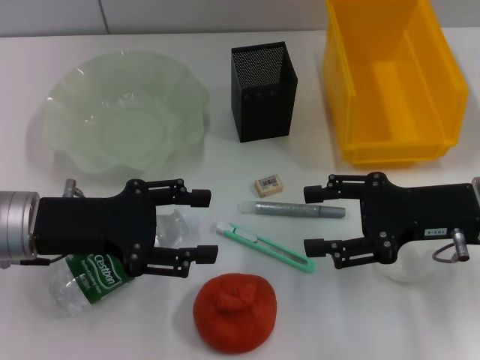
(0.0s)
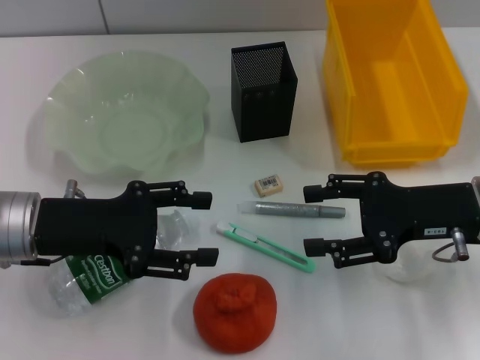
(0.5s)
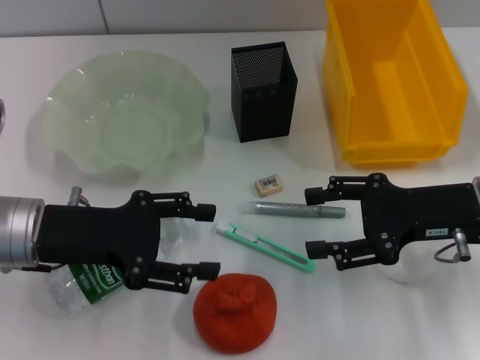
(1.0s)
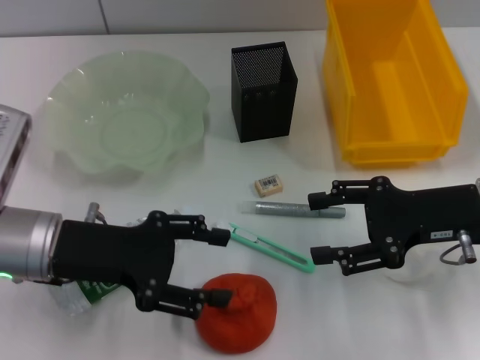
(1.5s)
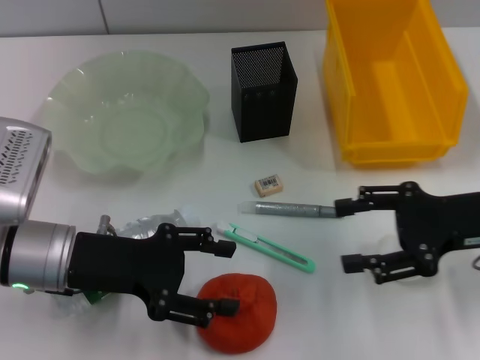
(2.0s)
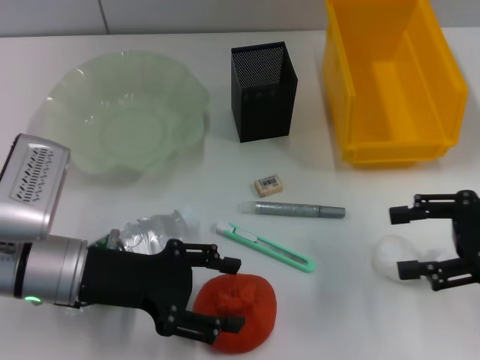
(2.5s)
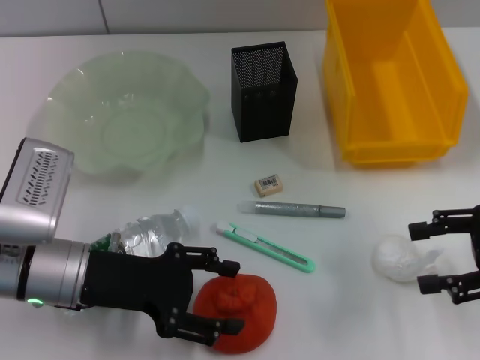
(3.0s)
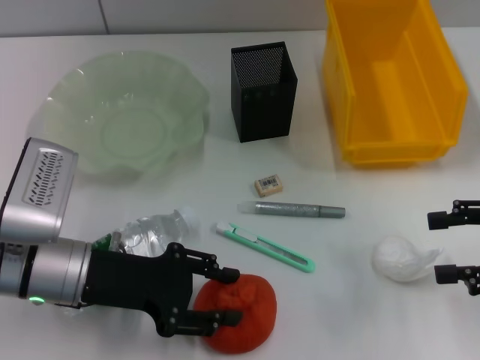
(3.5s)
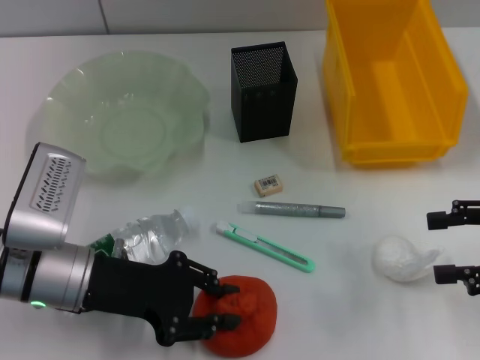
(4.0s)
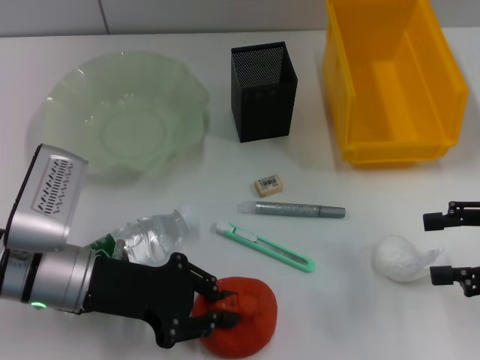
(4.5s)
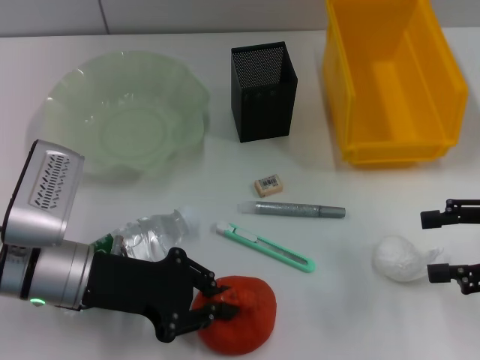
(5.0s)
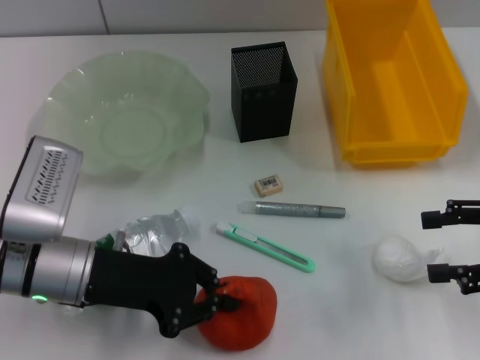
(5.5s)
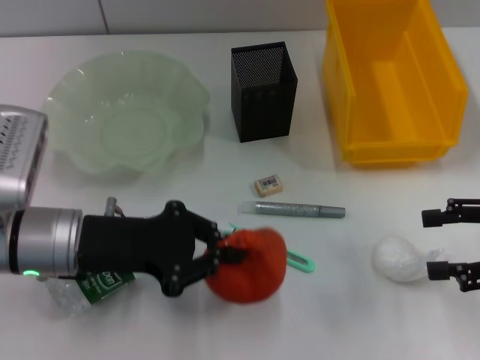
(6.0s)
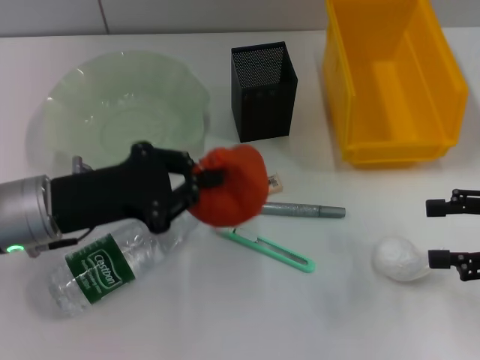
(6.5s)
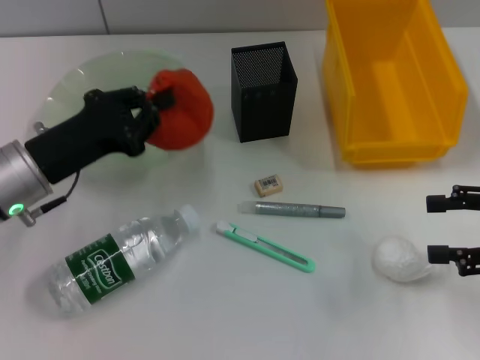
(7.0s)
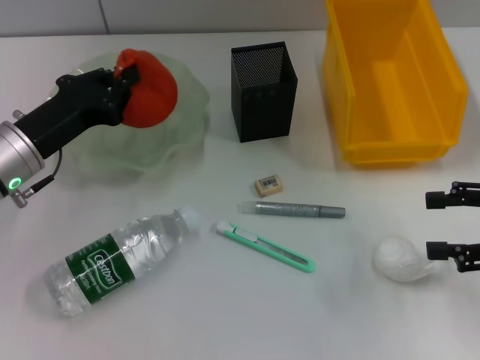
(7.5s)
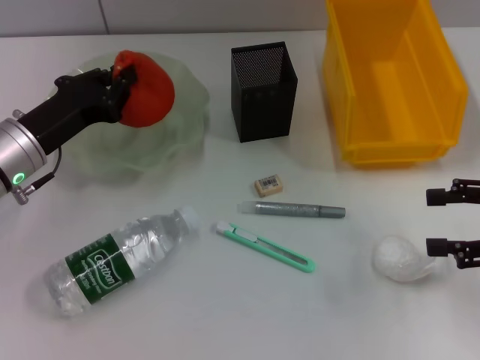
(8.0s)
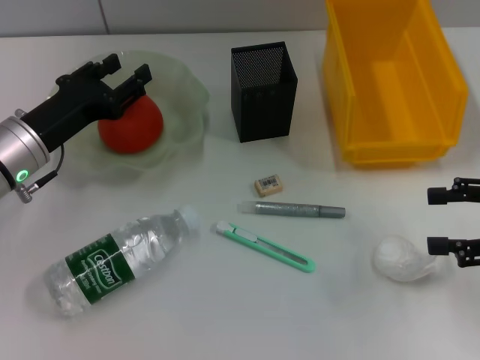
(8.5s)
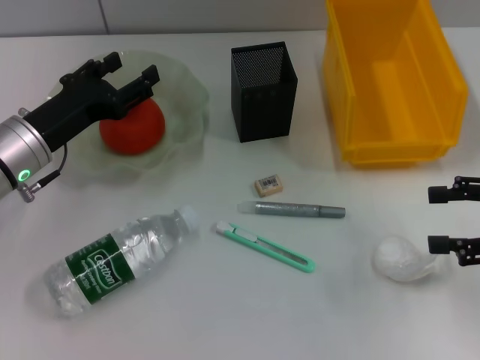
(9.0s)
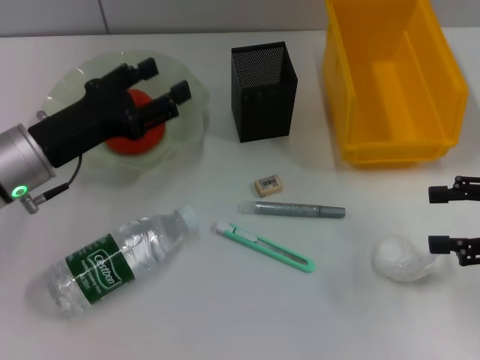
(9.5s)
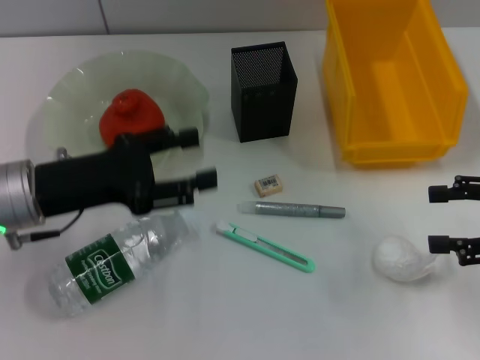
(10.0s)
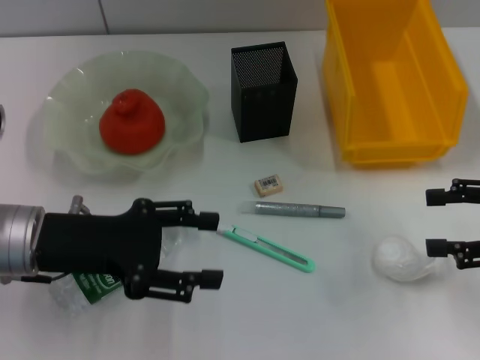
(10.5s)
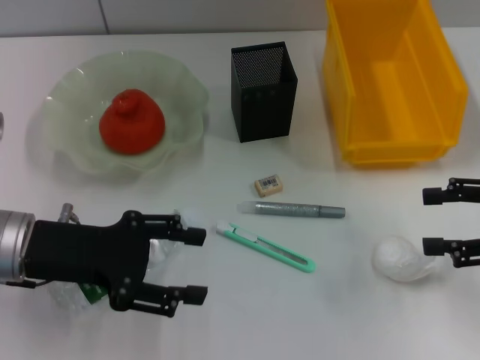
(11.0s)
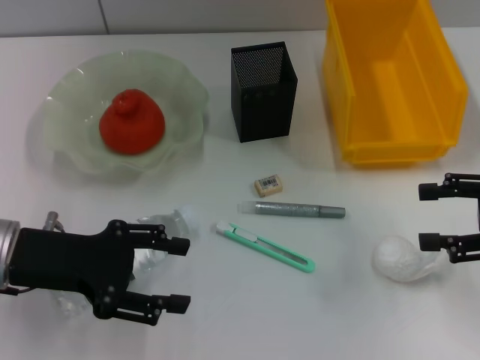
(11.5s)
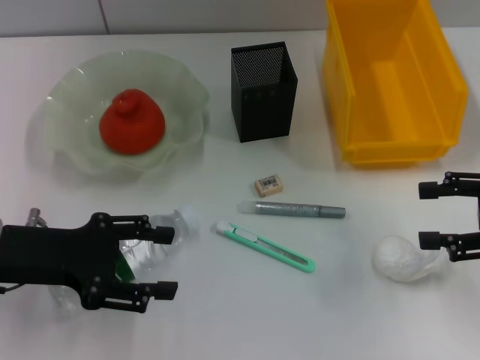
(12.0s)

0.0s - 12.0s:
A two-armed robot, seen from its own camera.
Step, 0.0s - 4.5s: Grab the orange with the left hand.
Step, 5.5s - 8.0s: Place the orange into the fruit bowl with the left hand.
0.0s - 2.0s: There are only small adjustments of the grippers.
2.0s - 4.0s: The left gripper closes up. Meanwhile the right gripper moves to the right, approximately 10 cm.
4.0s - 6.0s: The left gripper closes up.
6.0s - 8.0s: The left gripper travels forward by roughly 5 cm.
8.0s - 10.0s: The left gripper changes place by roughly 5 cm, and opens.

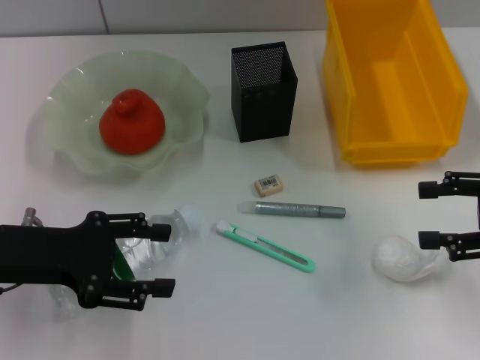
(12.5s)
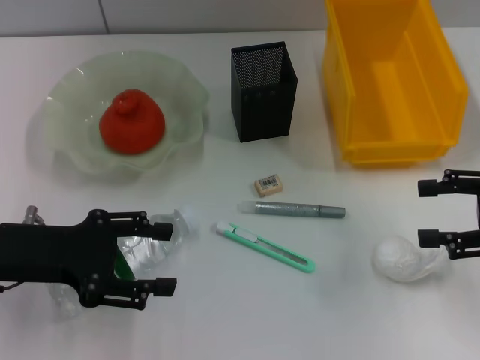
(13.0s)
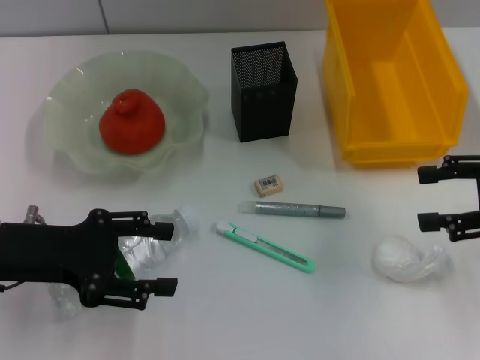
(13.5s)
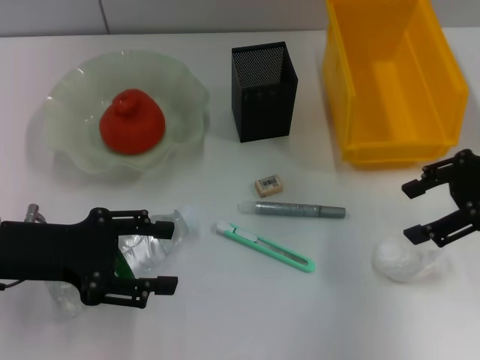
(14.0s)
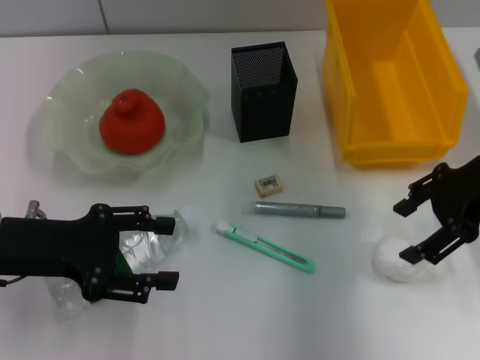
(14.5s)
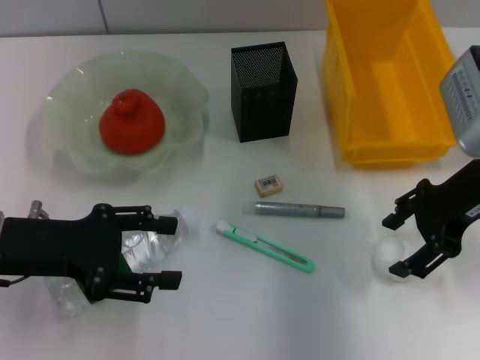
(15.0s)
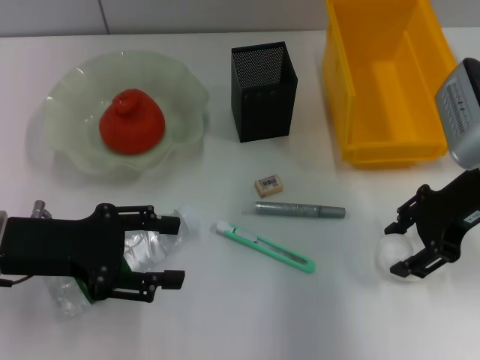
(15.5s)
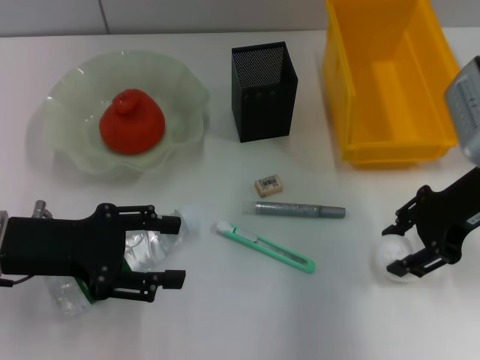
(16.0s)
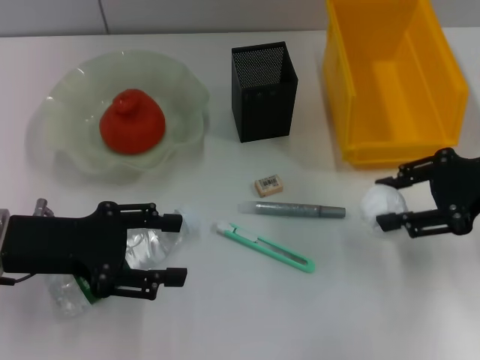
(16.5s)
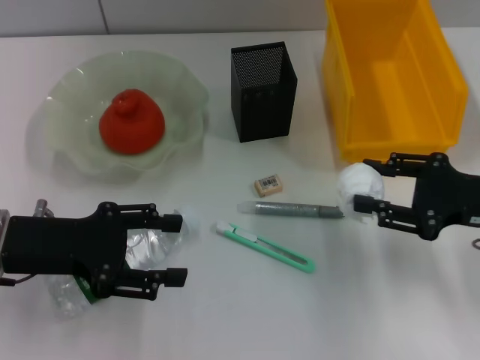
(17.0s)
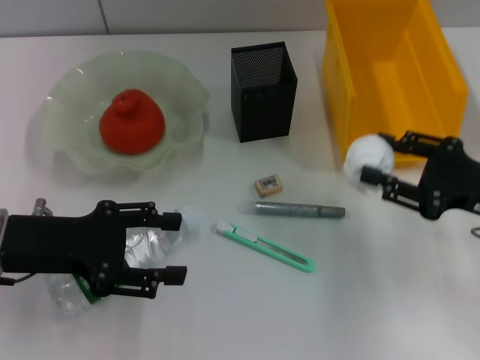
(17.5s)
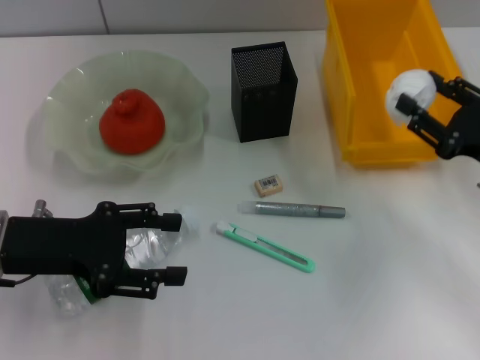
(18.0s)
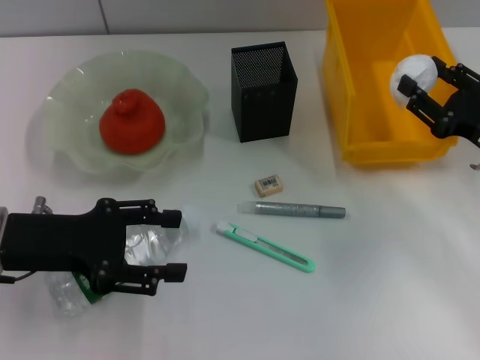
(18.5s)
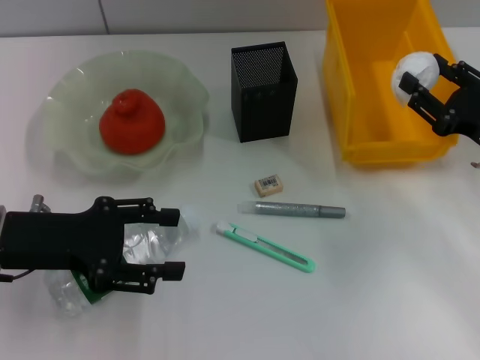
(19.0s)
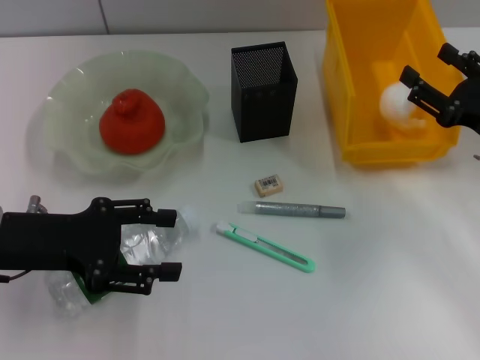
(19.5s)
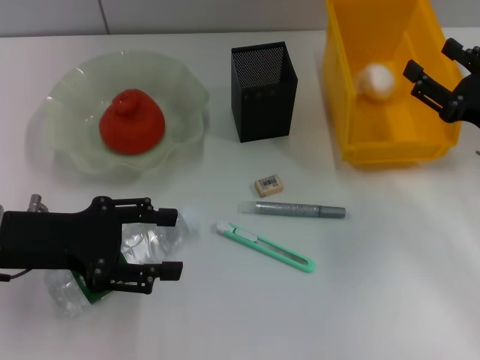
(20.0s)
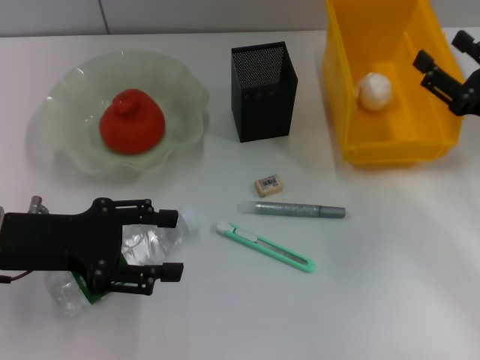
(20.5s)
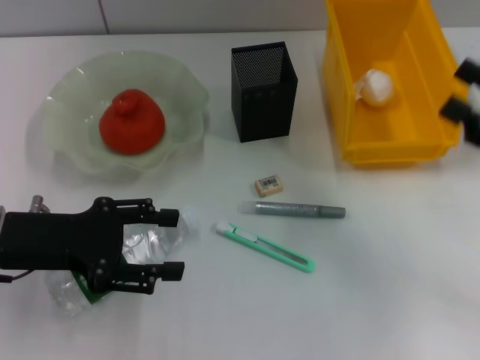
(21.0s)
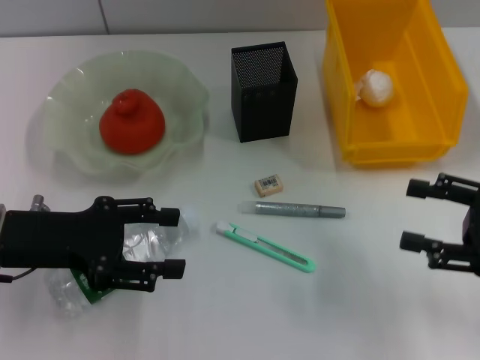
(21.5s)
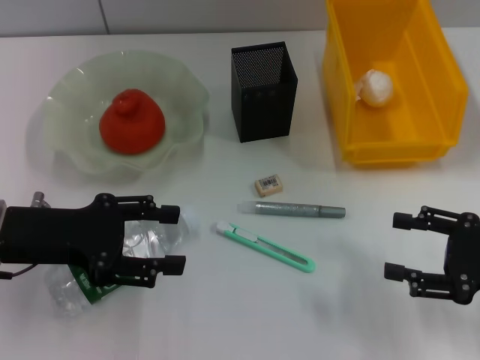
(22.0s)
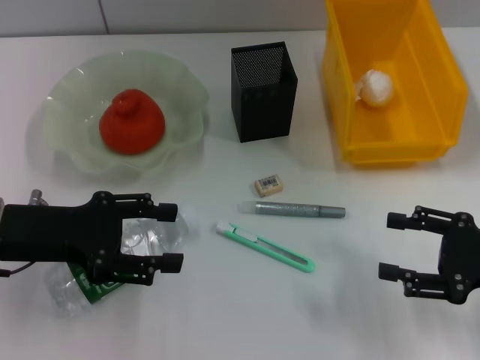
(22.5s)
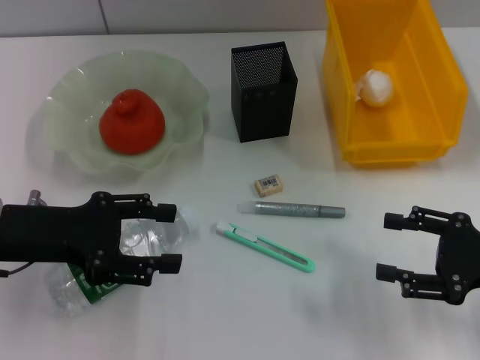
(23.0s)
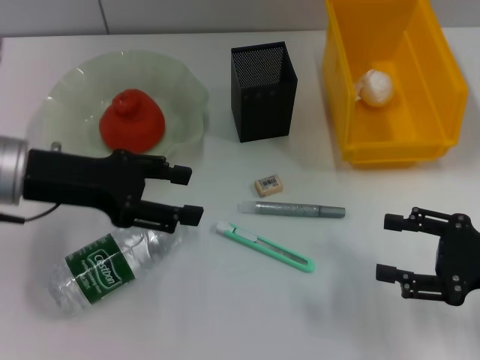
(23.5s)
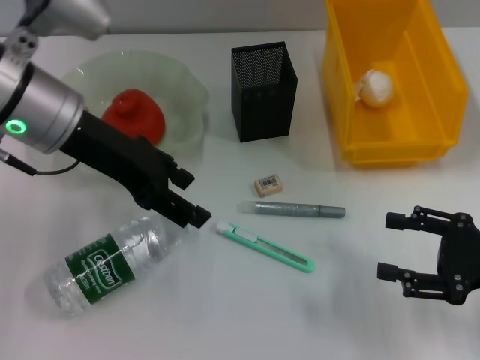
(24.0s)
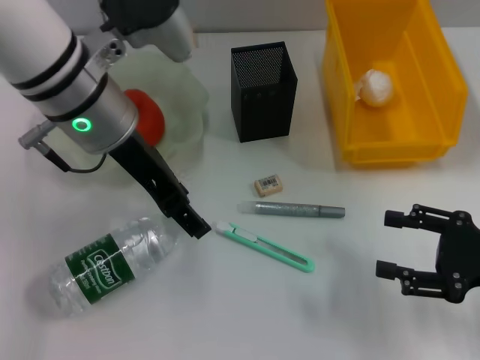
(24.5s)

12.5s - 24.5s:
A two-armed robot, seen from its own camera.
Step, 12.5s - 15.5s: Grab the paper ball with the right hand.
Step, 16.0s - 19.5s: Place the paper ball into the trash can with the right hand.
12.5s - 14.5s: The right gripper heads to the left, forward and upward, covering some 10 cm.
14.5s - 16.5s: The right gripper moves roughly 5 cm, and closes its fingers.
16.5s - 18.5s: The right gripper is displaced downward by some 10 cm.
18.5s - 20.5s: The grippers move only a little.
20.5s - 22.5s: The right gripper is displaced backward by about 10 cm.
22.5s - 24.5s: The left gripper moves to the right, upward and forward, some 20 cm.

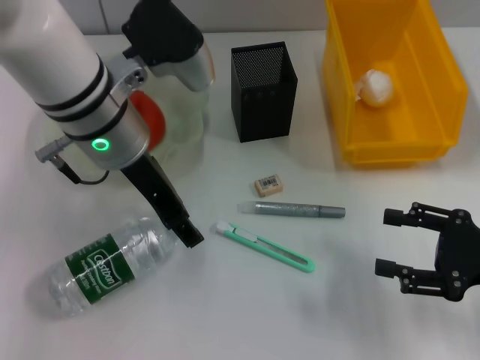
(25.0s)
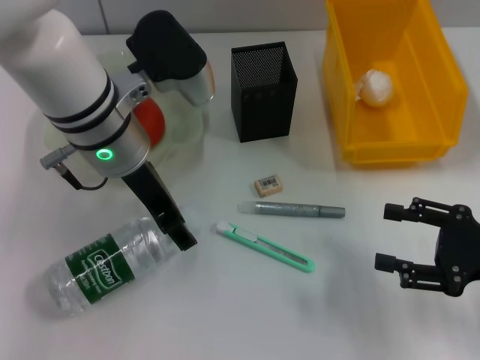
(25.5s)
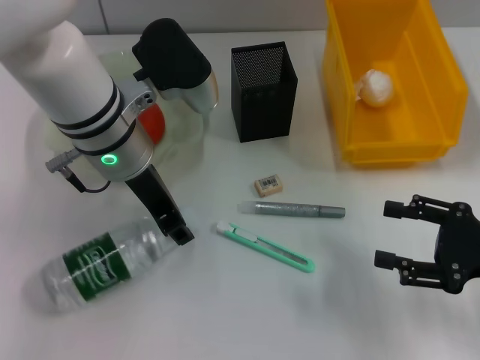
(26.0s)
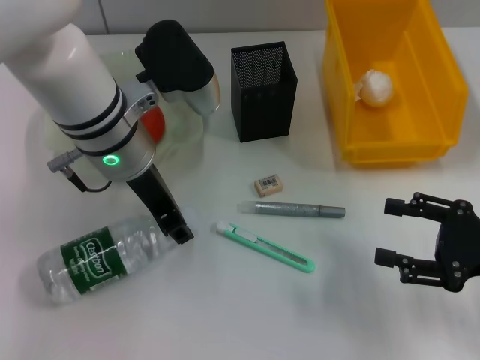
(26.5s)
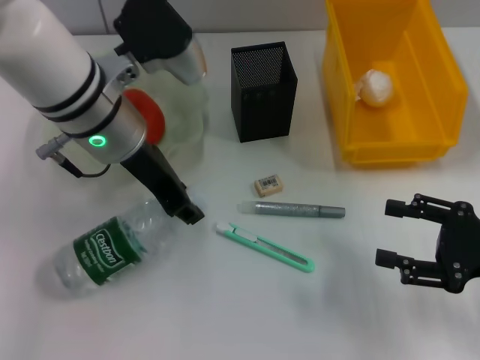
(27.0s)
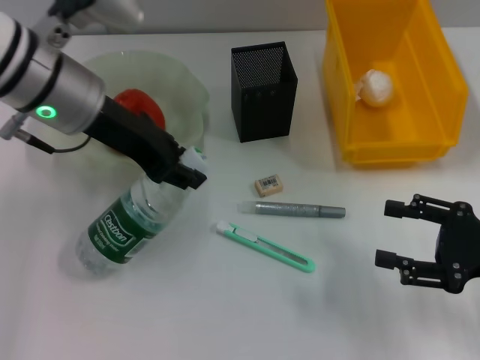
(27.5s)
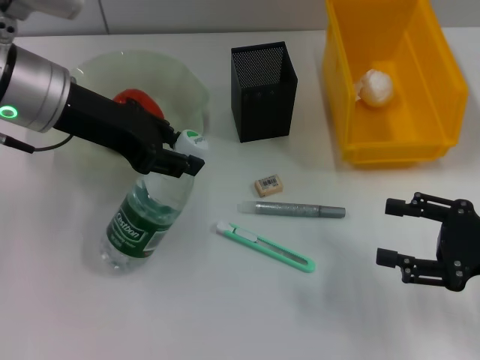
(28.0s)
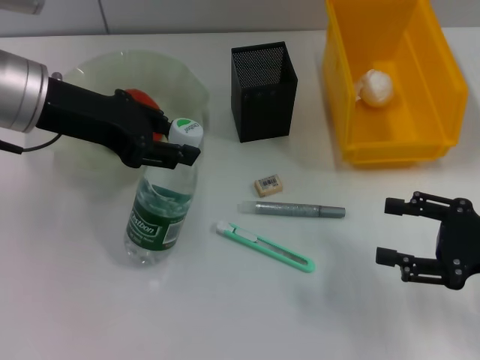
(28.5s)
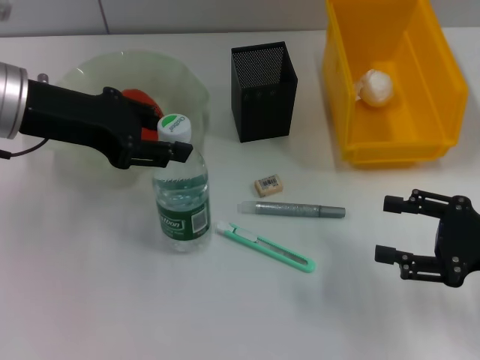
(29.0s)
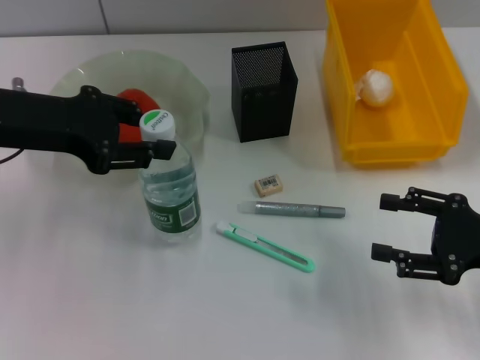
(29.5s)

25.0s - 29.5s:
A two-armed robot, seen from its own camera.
25.0s - 27.0s: The left gripper closes.
27.0s - 29.5s: The left gripper goes some 10 cm to the left.
